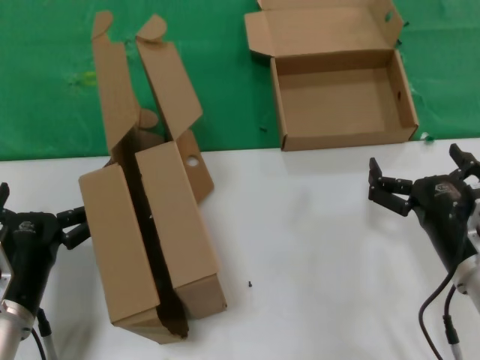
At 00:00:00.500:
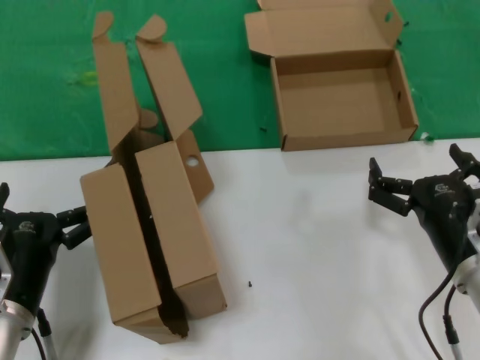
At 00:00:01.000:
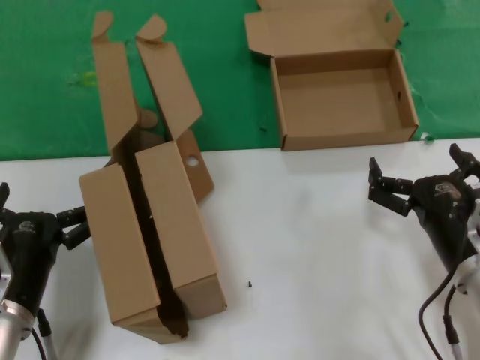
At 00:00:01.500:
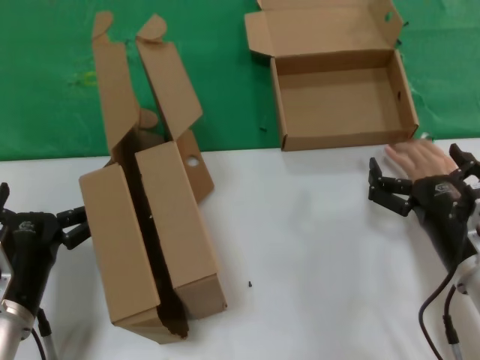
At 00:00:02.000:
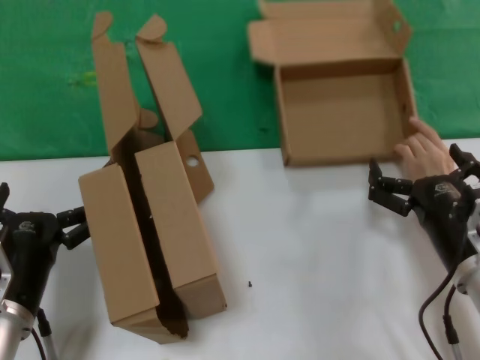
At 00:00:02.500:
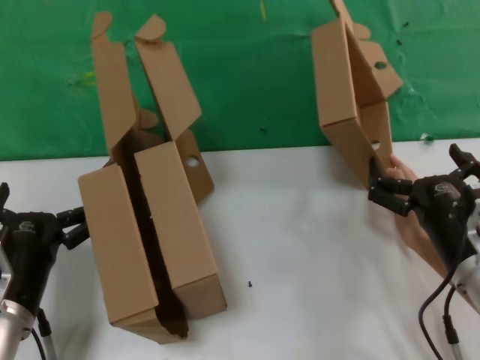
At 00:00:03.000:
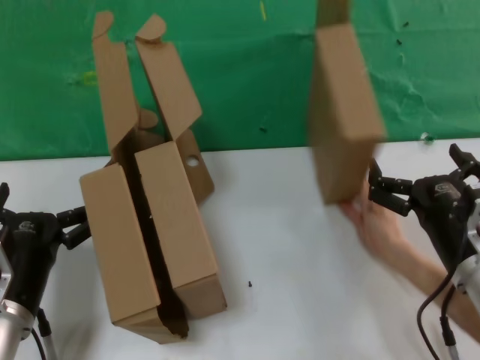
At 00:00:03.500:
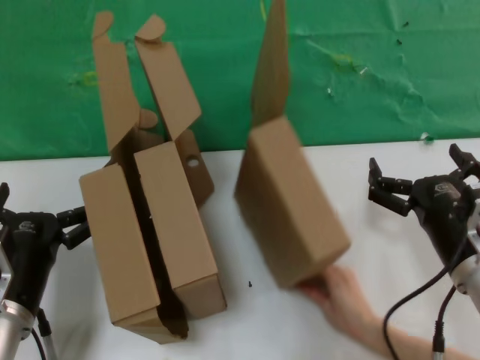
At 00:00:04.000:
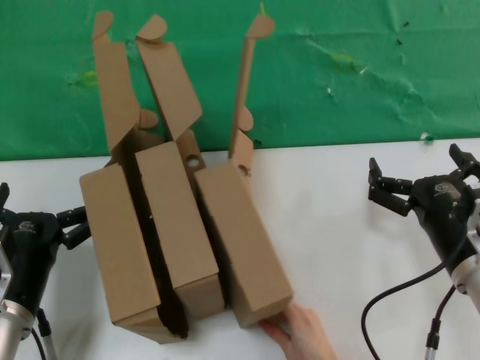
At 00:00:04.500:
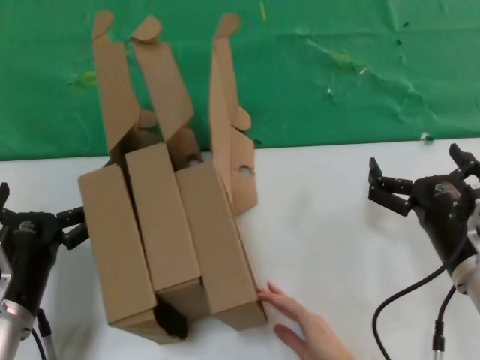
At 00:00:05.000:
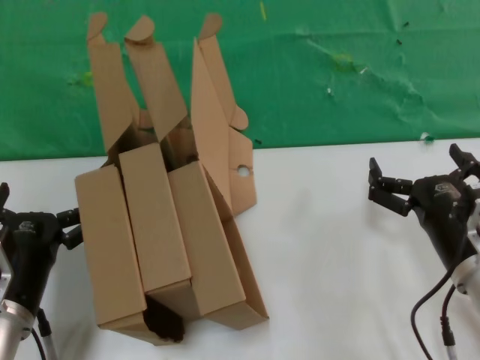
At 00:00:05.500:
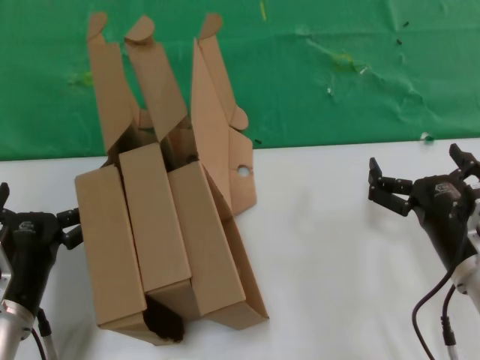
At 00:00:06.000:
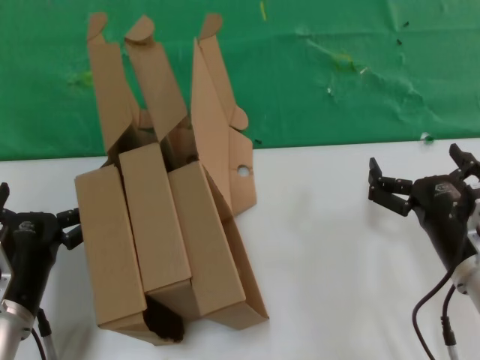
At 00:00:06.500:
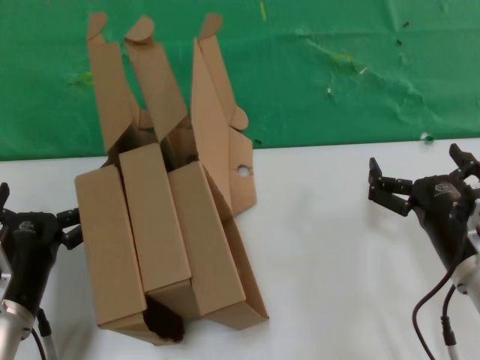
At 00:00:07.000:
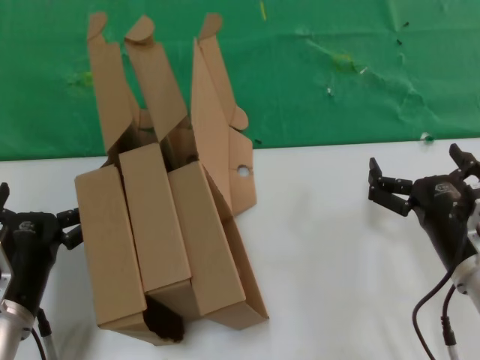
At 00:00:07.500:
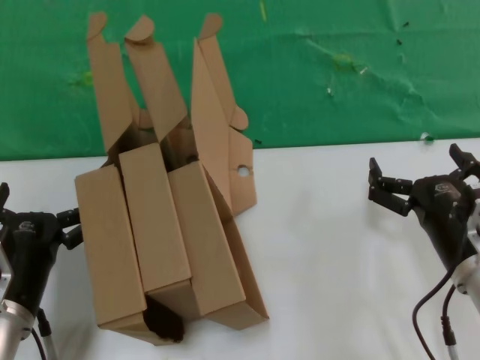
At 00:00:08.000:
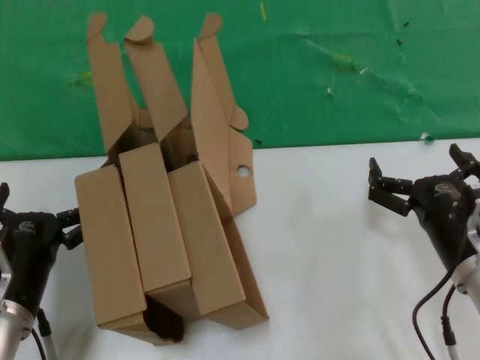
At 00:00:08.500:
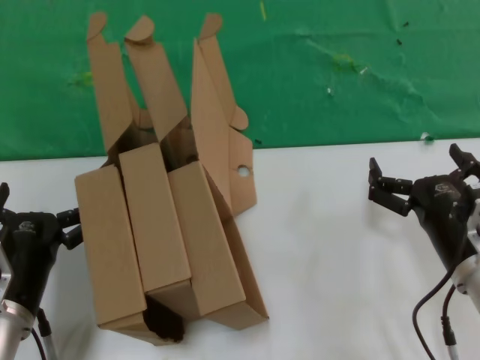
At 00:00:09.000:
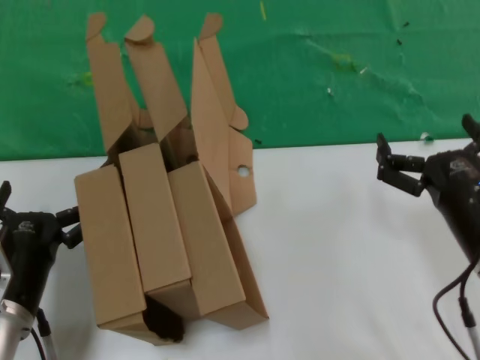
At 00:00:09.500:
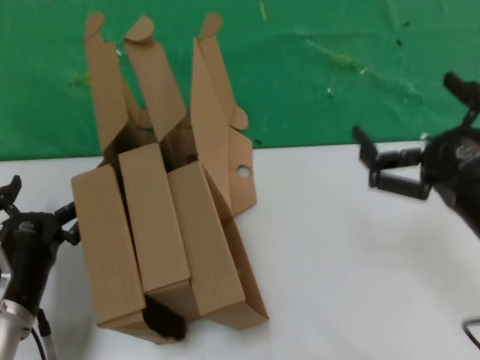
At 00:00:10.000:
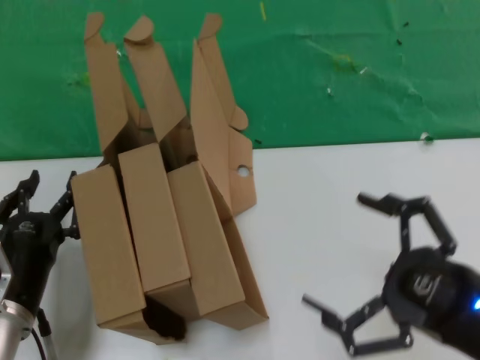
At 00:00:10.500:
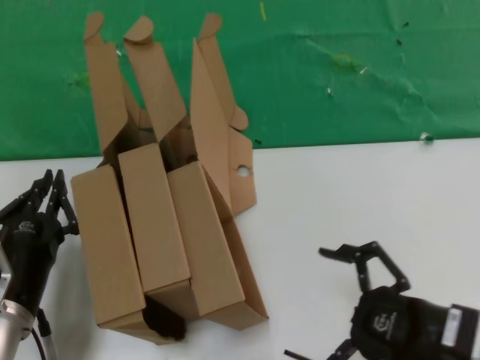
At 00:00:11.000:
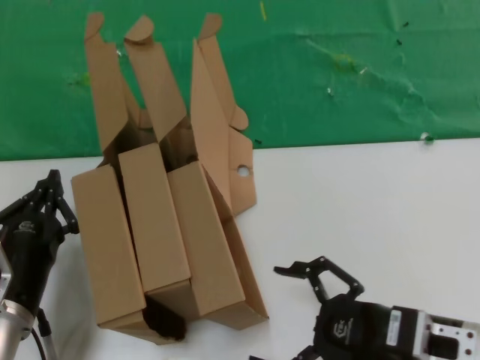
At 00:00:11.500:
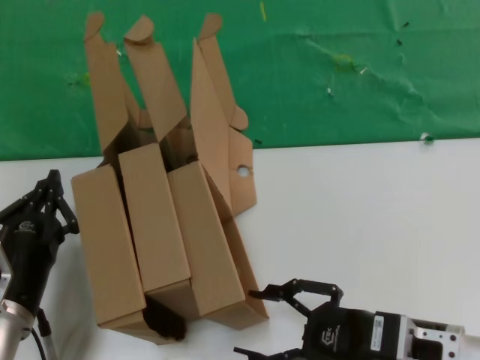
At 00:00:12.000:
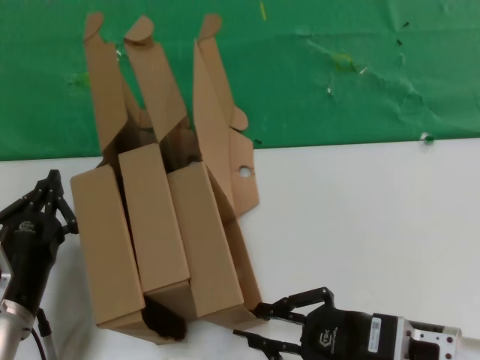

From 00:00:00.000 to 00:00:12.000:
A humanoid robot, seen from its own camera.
Task of the whole recording: pick up the paper box and put it at the back.
From 00:00:00.000 to 00:00:02.000: Both hands stay about where they are.
From 00:00:04.000 to 00:00:08.000: Both hands stay put.
From 00:00:08.000 to 00:00:10.000: The right hand moves backward and upward, some 15 cm.
From 00:00:10.000 to 00:00:12.000: The right hand is displaced to the left and downward by roughly 10 cm.

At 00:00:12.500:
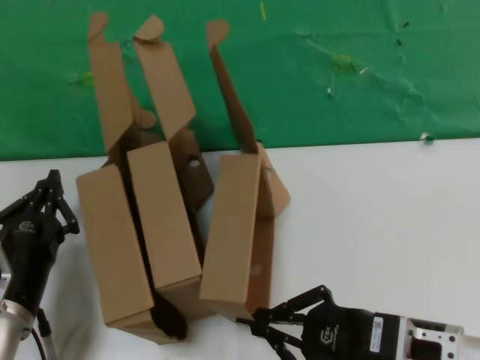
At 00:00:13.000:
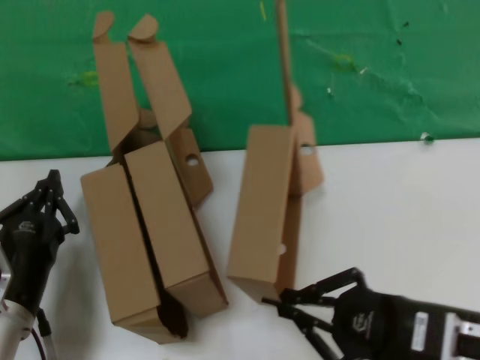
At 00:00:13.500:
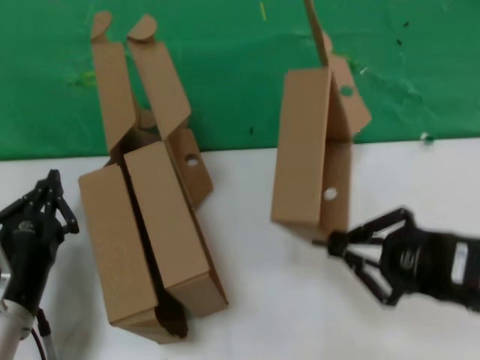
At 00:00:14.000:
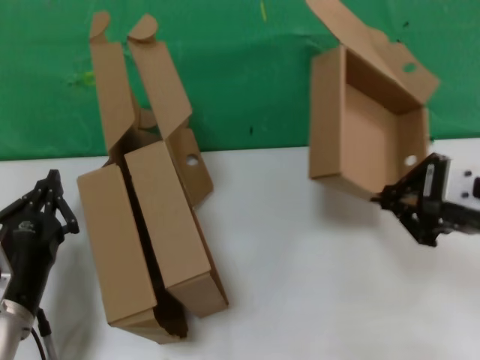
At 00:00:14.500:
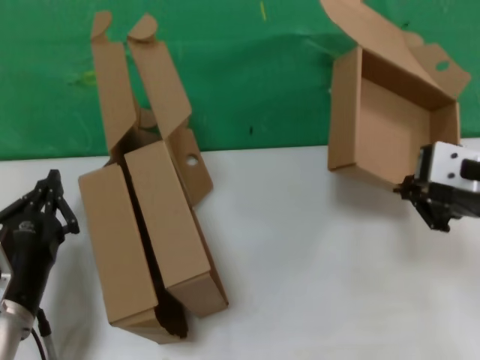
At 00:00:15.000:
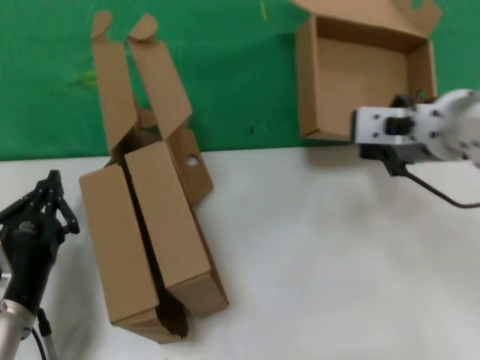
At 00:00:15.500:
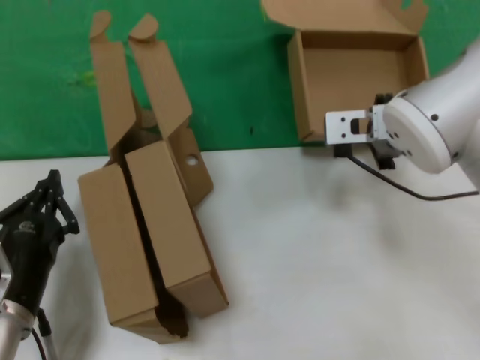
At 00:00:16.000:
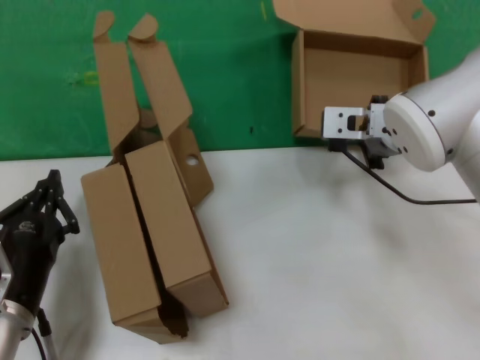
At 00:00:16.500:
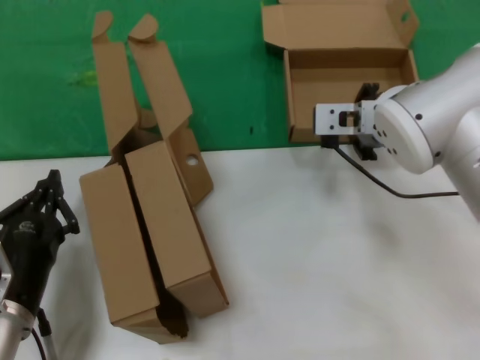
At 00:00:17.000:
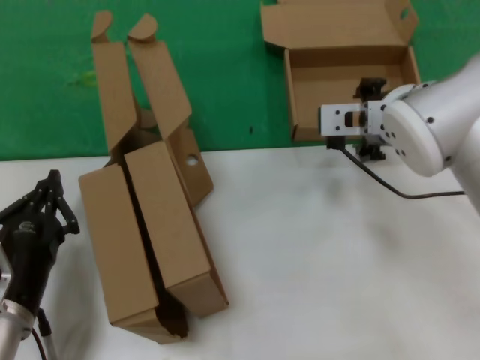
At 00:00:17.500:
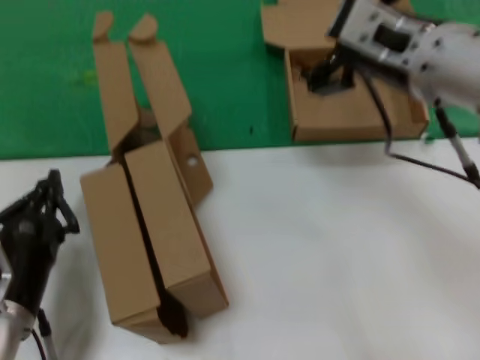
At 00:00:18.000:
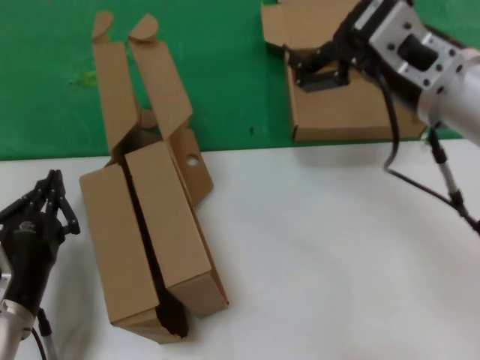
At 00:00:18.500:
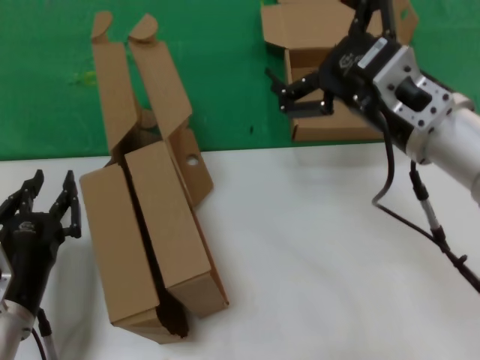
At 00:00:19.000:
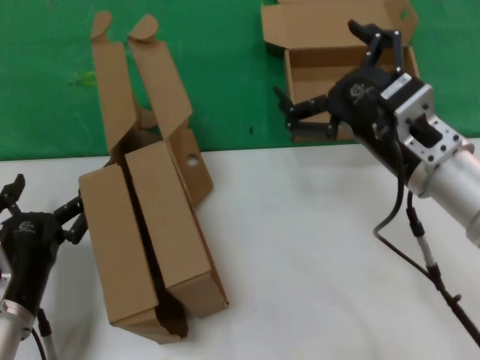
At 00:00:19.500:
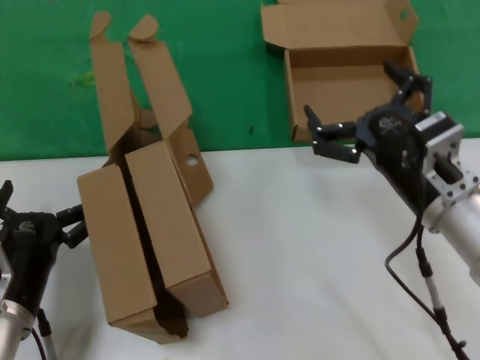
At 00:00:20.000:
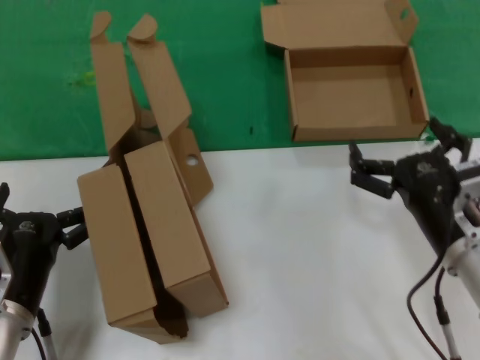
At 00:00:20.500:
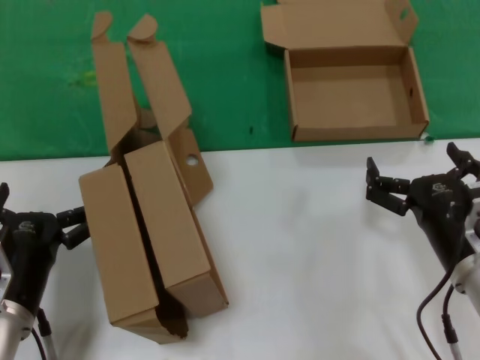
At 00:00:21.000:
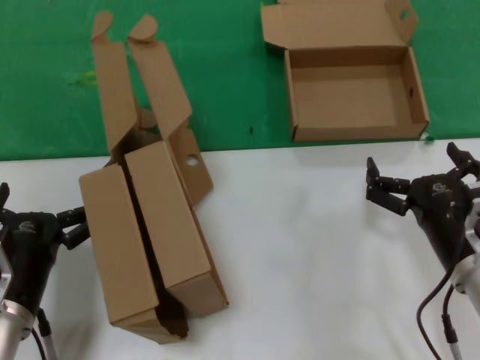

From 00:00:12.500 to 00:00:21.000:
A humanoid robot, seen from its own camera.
Task of the whole recording: pick up the paper box and put it at the back.
Step, from 00:00:12.500 to 00:00:16.500: Place the paper box on the table.
From 00:00:12.500 to 00:00:14.500: The right hand heads upward and forward, covering roughly 20 cm.
From 00:00:14.500 to 00:00:16.500: The right hand heads forward and to the left, covering roughly 20 cm.
From 00:00:16.500 to 00:00:19.000: The right hand travels backward by approximately 10 cm.
From 00:00:19.000 to 00:00:21.000: The right hand goes about 15 cm downward.

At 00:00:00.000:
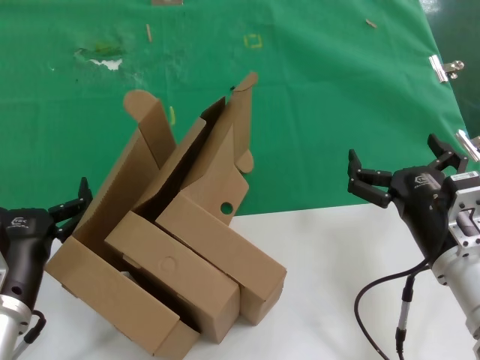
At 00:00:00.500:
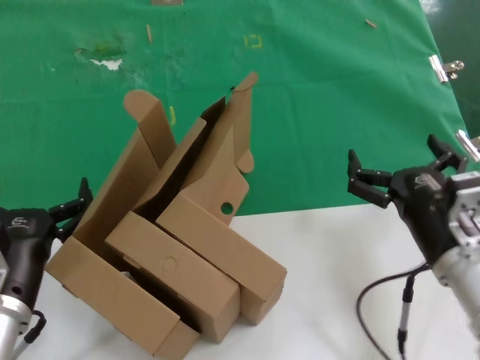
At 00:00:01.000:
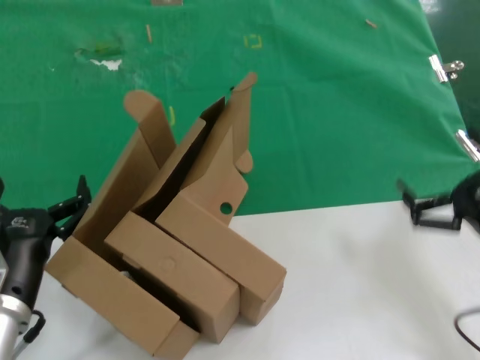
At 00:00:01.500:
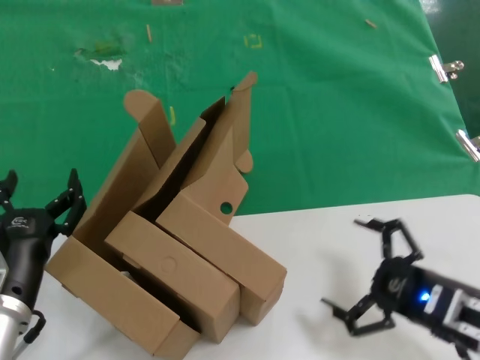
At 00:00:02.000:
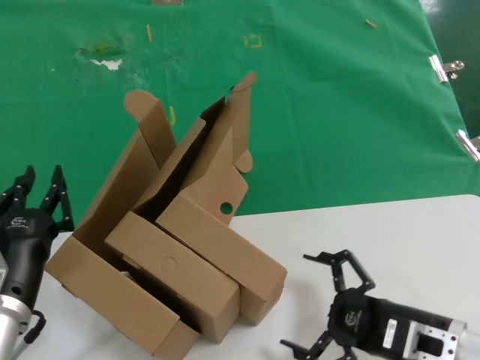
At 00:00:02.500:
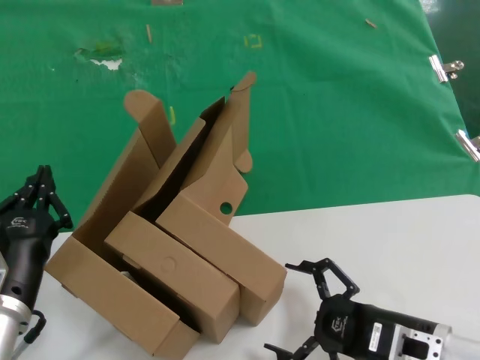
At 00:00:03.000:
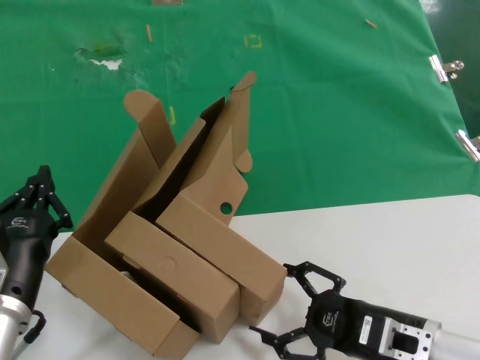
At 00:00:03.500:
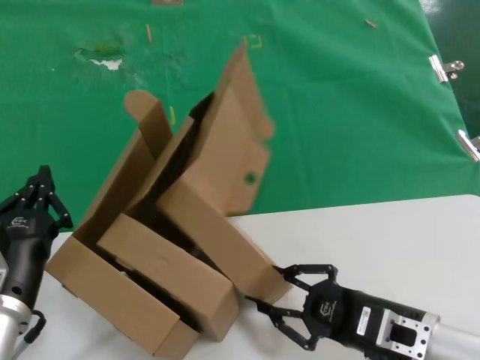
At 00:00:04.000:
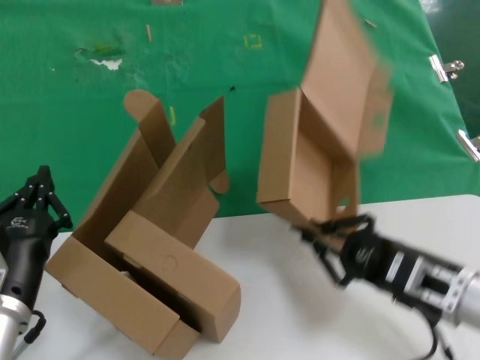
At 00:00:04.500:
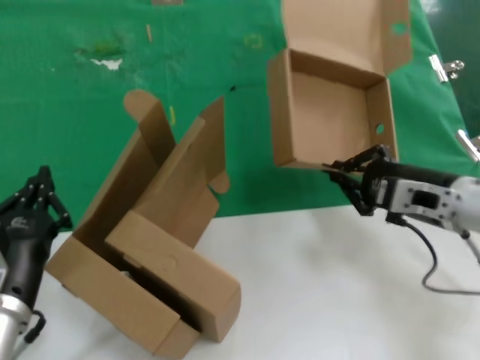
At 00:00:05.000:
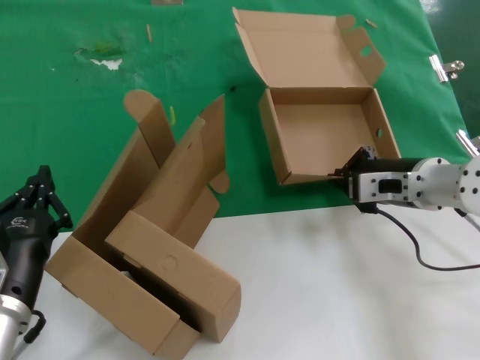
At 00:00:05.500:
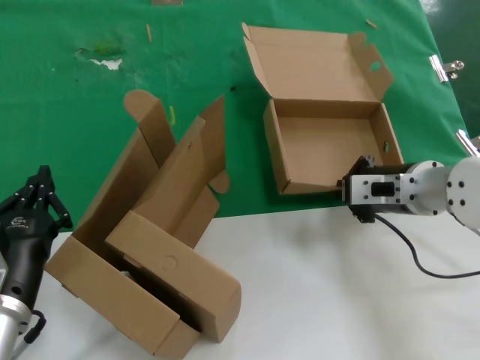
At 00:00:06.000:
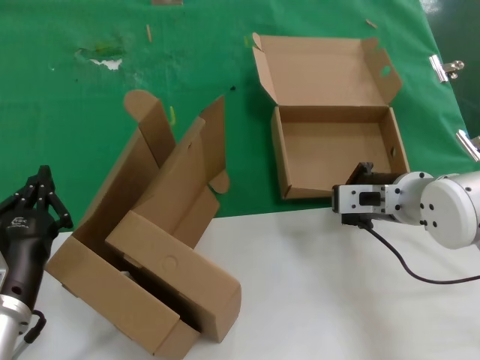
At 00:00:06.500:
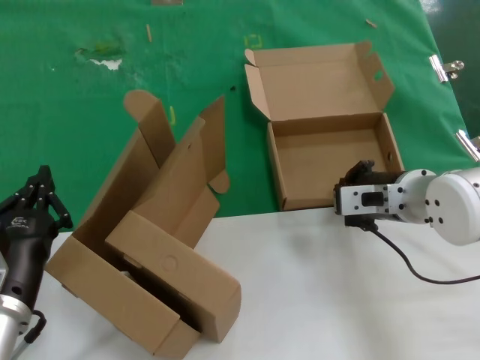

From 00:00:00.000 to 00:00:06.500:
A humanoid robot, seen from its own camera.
Task of the whole recording: pick up the paper box and put it at the back.
Step, from 00:00:00.000 to 00:00:03.500: Grasp the paper box.
Step, from 00:00:04.000 to 00:00:06.000: Place the paper box on the table.
From 00:00:00.000 to 00:00:02.000: The right hand shifts roughly 5 cm downward, and goes to the right and returns, roughly 10 cm each way.
From 00:00:02.000 to 00:00:04.500: The right hand moves forward and upward, approximately 15 cm.
From 00:00:04.500 to 00:00:06.500: The right hand travels to the left and forward by roughly 10 cm.
